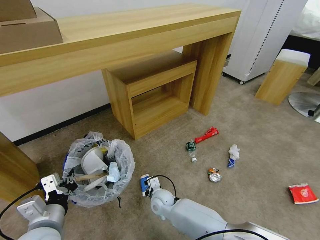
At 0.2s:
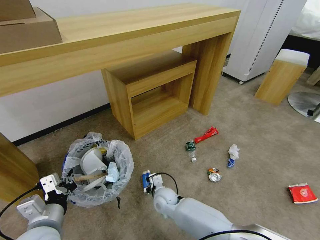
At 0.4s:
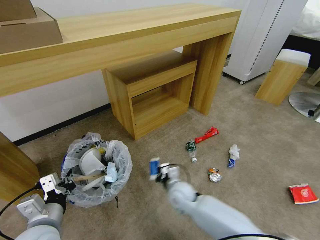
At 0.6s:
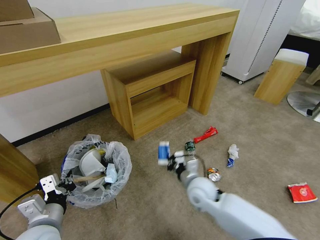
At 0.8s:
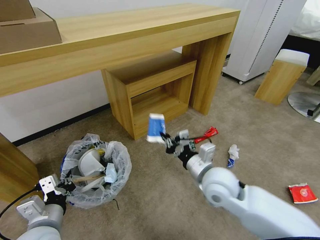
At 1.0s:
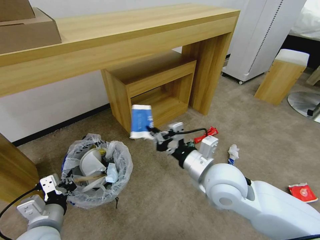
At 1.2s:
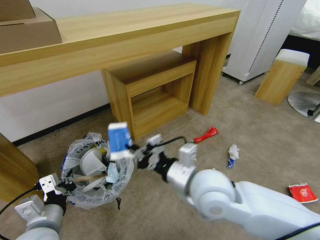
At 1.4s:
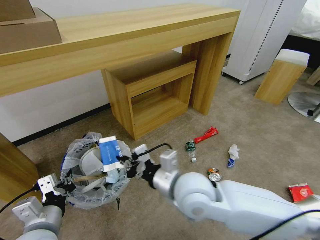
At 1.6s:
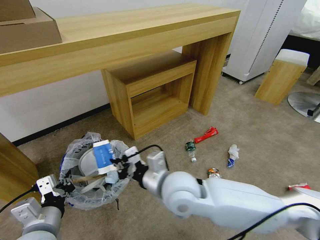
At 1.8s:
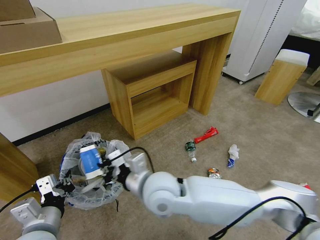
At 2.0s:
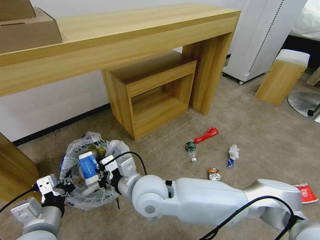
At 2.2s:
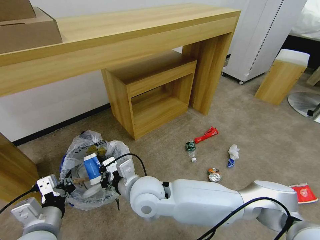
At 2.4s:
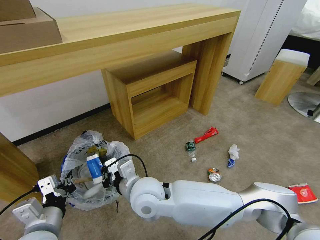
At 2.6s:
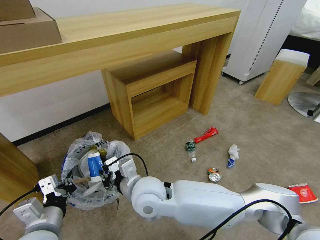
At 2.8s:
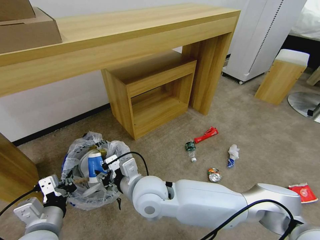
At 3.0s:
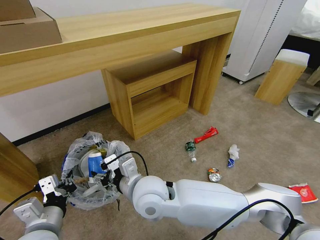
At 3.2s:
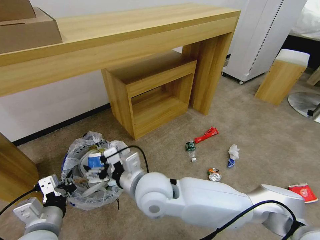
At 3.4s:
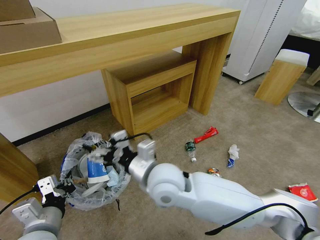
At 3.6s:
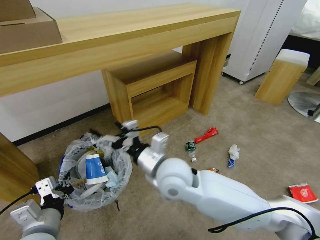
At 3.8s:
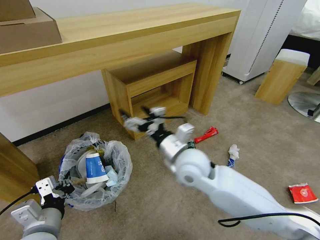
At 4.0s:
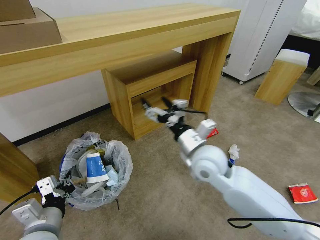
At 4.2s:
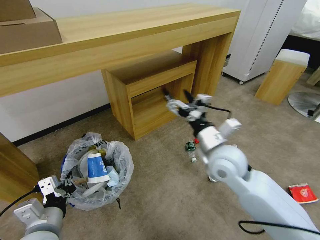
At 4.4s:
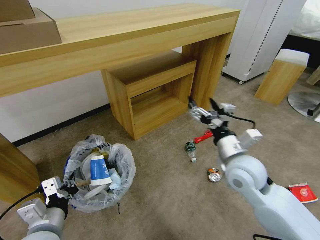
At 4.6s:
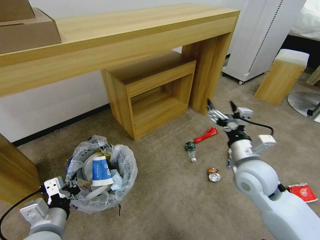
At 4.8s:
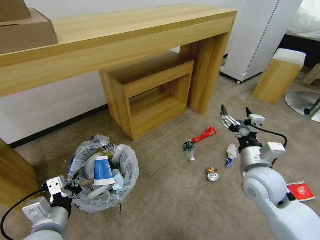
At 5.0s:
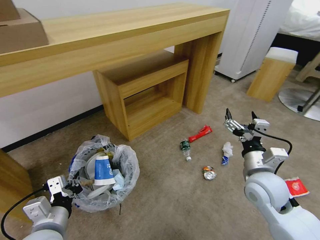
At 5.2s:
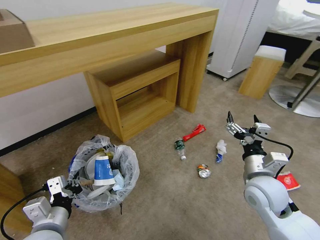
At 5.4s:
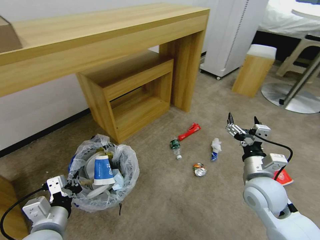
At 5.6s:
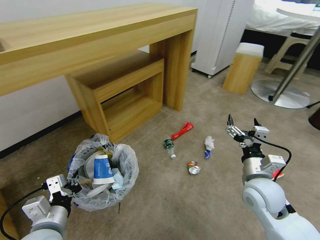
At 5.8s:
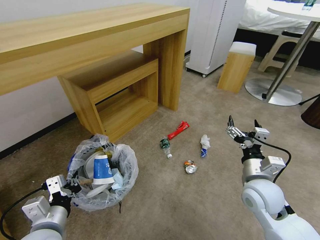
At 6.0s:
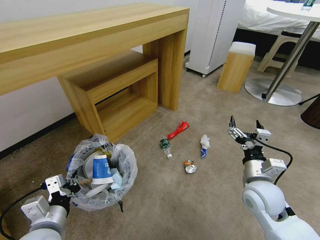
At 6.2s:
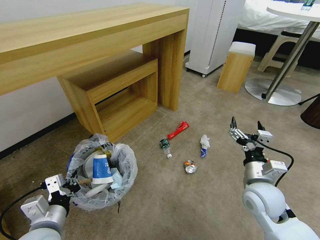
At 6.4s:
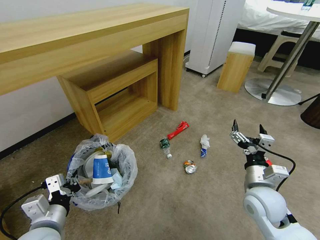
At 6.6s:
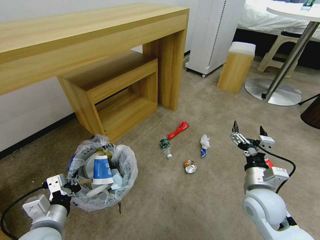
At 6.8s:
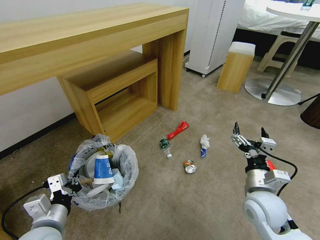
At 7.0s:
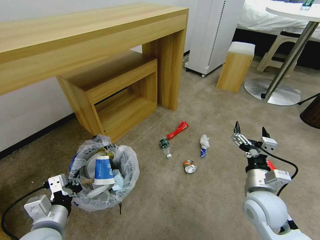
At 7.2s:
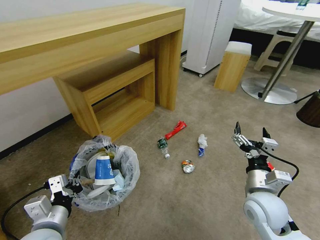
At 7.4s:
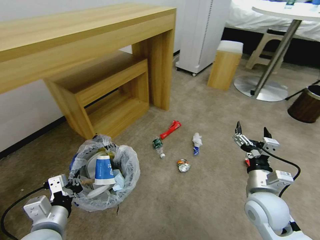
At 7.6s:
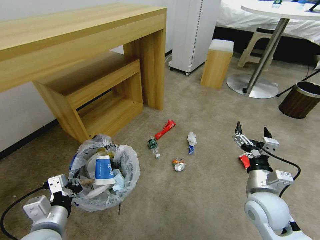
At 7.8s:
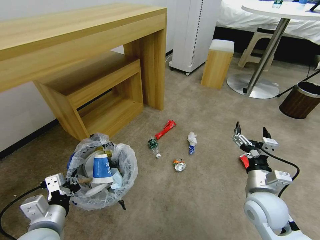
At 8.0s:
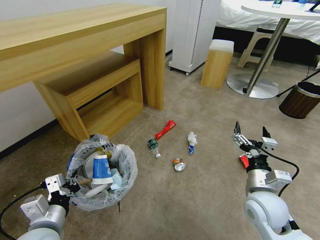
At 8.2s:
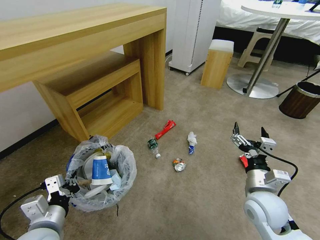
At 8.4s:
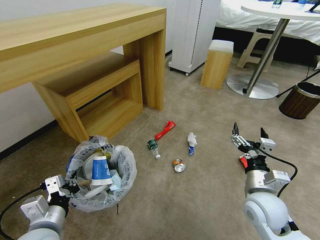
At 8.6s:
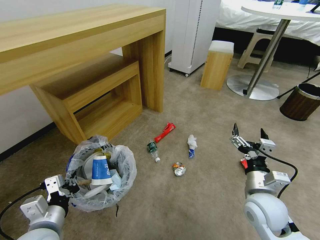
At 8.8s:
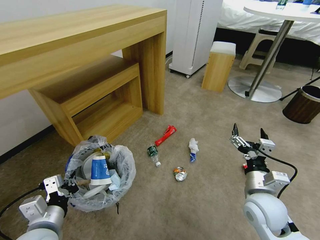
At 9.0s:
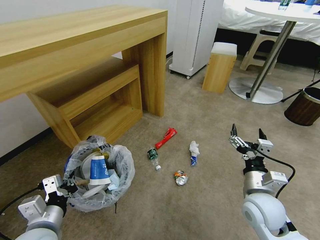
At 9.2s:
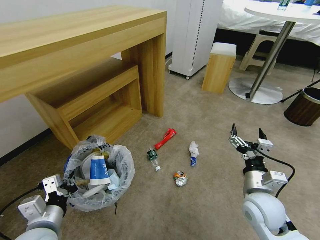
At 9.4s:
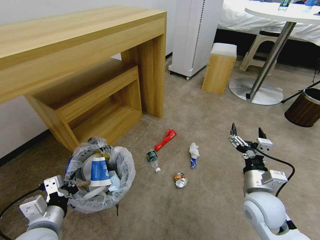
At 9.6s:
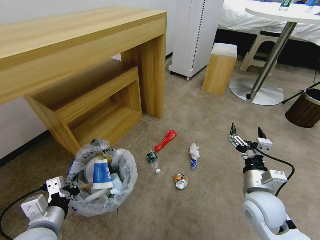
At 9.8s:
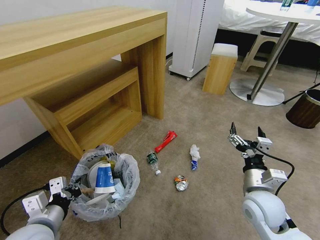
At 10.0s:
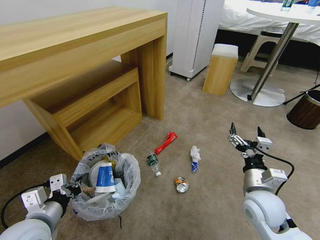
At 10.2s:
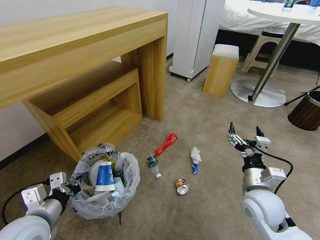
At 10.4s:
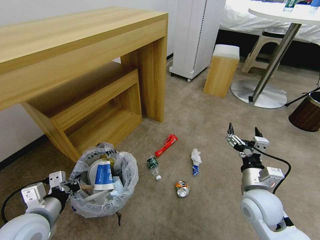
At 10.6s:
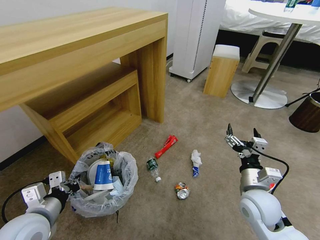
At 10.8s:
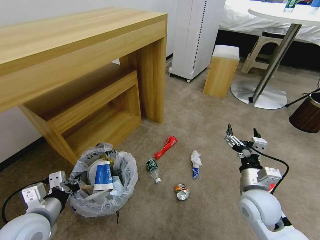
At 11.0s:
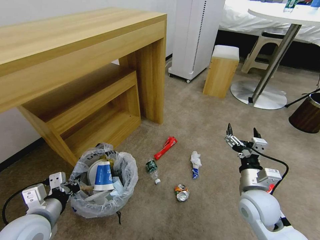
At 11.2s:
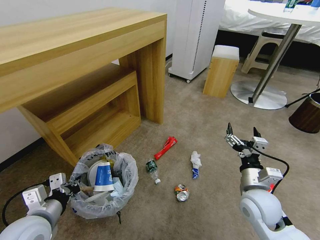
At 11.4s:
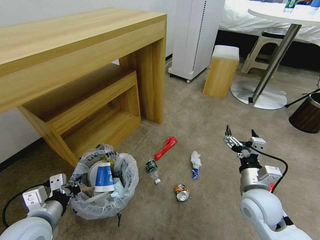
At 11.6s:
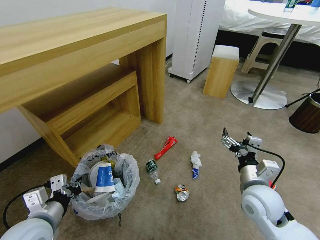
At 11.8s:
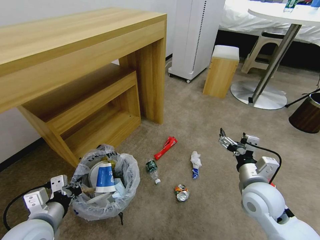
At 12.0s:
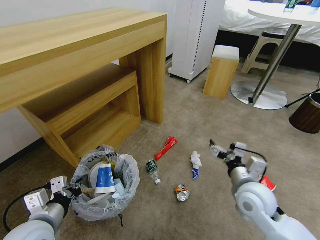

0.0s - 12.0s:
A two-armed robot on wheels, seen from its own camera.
Task of the whole recording: Pick up the trash bin and place the garbage on the floor into it.
0.0s - 1.6s: The right gripper travels upward by roughly 30 cm.
1.6s - 3.0s: The right gripper moves to the left, about 5 cm, and opens.
3.0s - 4.4s: The right gripper is displaced to the right by roughly 25 cm.
4.4s - 6.0s: The right gripper shifts about 10 cm downward and to the right.

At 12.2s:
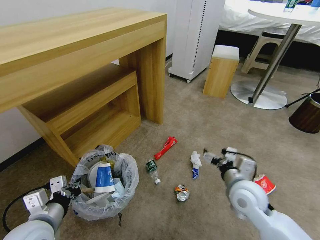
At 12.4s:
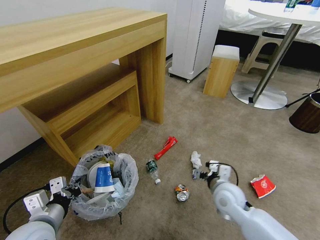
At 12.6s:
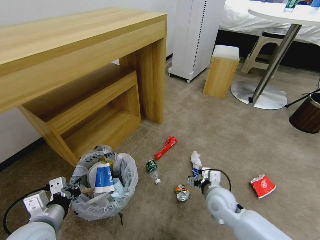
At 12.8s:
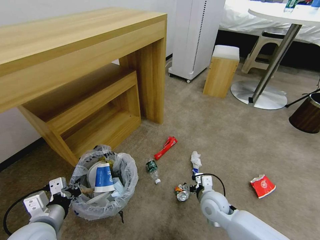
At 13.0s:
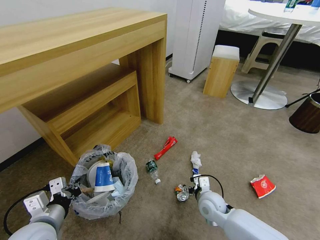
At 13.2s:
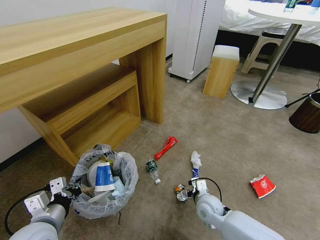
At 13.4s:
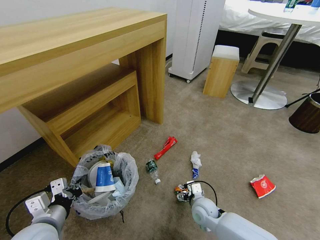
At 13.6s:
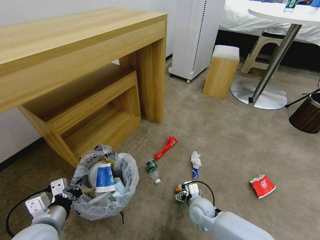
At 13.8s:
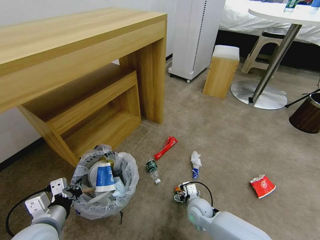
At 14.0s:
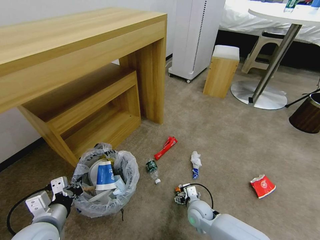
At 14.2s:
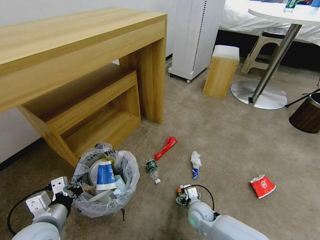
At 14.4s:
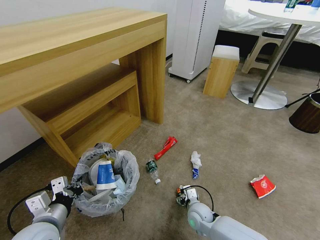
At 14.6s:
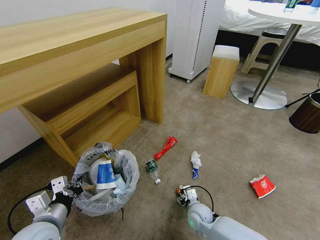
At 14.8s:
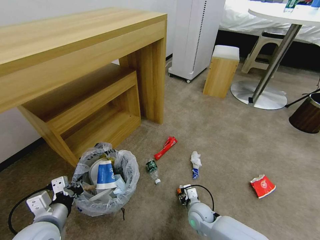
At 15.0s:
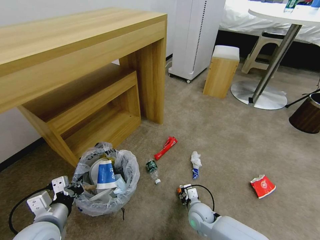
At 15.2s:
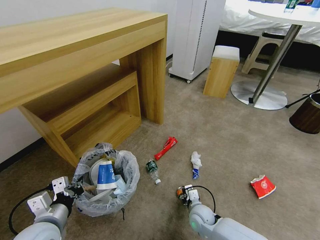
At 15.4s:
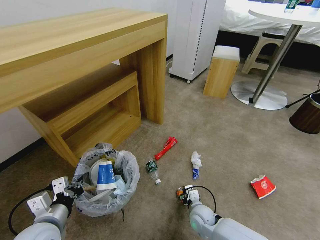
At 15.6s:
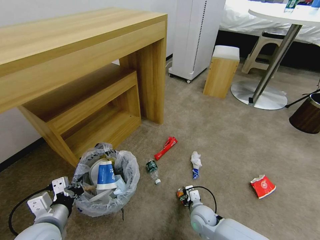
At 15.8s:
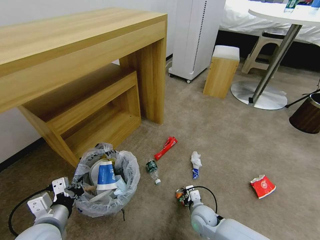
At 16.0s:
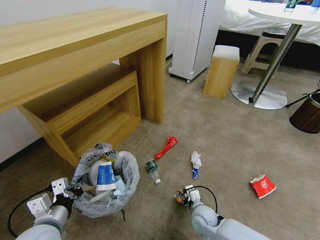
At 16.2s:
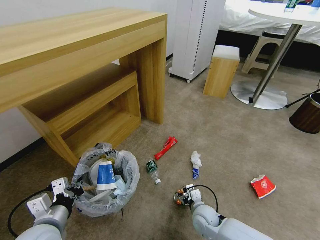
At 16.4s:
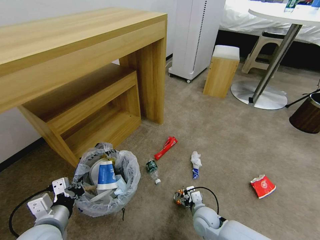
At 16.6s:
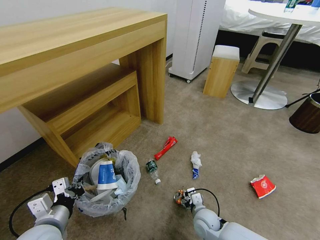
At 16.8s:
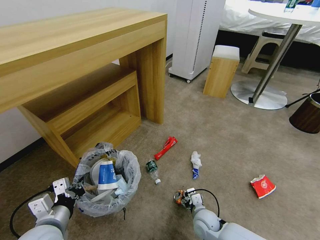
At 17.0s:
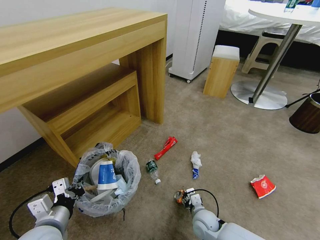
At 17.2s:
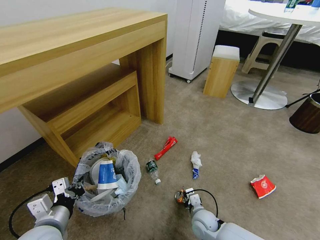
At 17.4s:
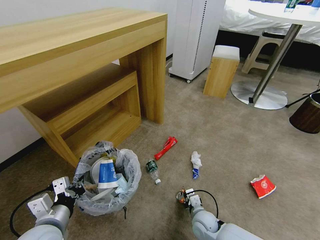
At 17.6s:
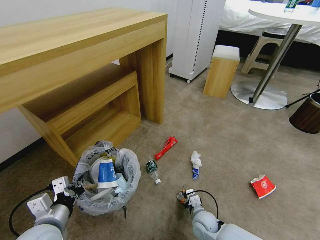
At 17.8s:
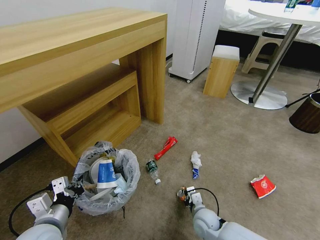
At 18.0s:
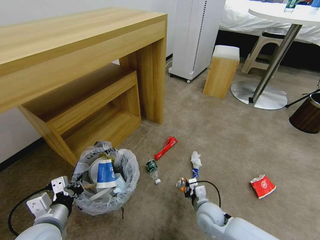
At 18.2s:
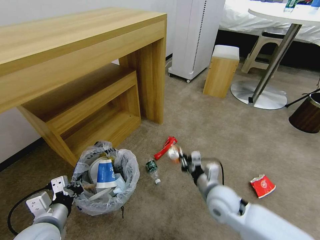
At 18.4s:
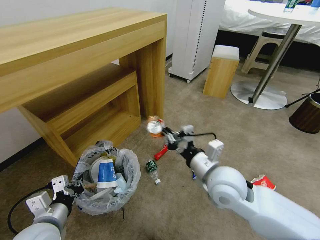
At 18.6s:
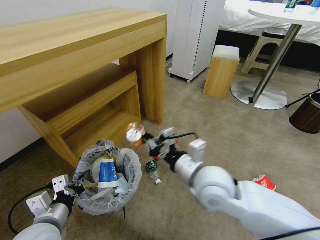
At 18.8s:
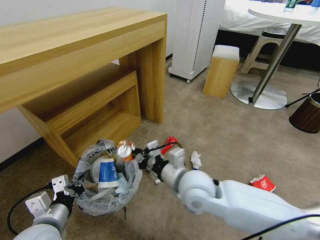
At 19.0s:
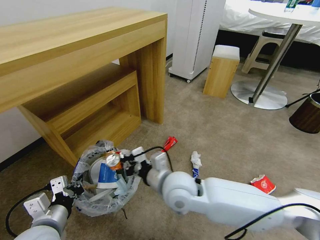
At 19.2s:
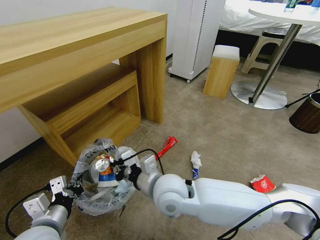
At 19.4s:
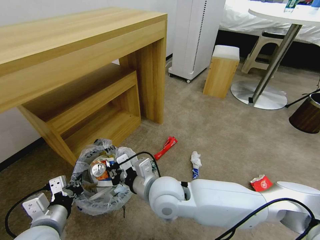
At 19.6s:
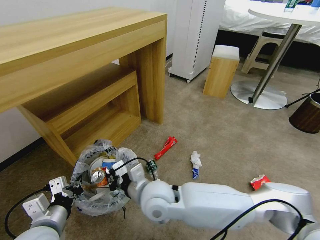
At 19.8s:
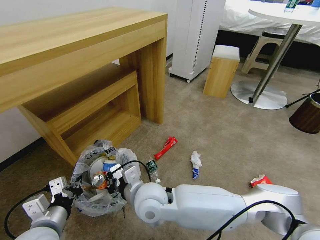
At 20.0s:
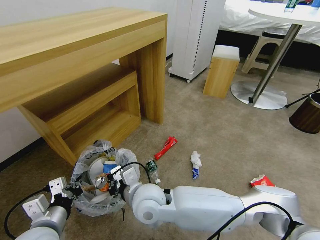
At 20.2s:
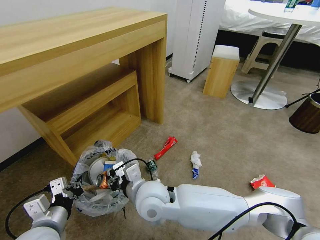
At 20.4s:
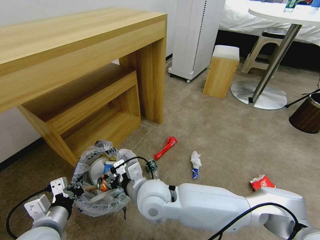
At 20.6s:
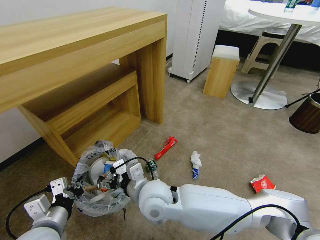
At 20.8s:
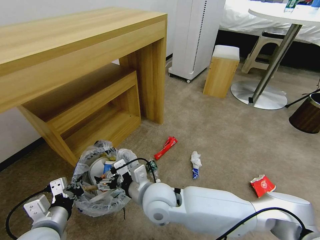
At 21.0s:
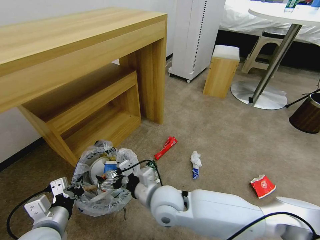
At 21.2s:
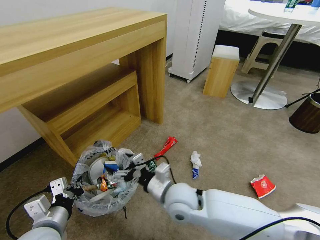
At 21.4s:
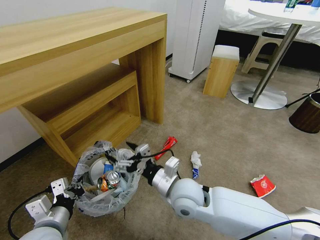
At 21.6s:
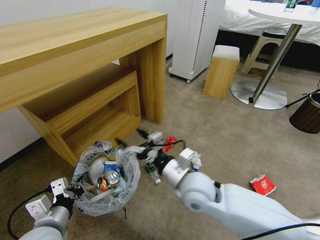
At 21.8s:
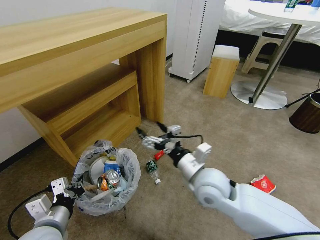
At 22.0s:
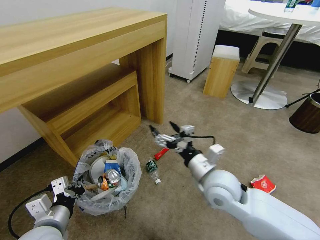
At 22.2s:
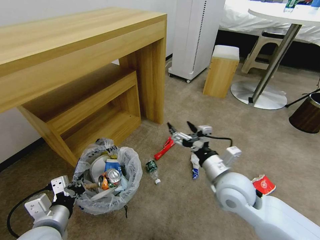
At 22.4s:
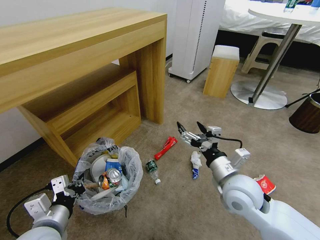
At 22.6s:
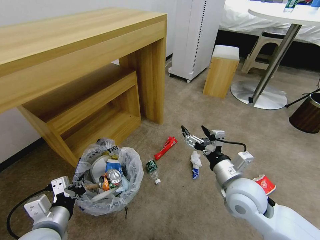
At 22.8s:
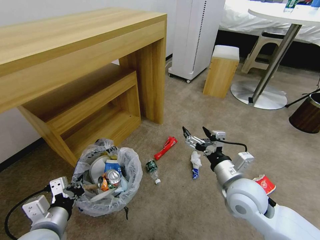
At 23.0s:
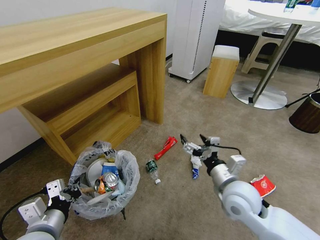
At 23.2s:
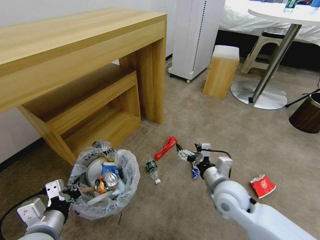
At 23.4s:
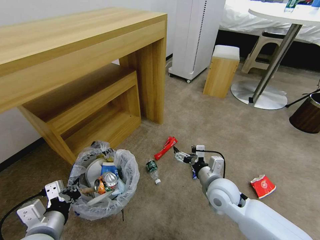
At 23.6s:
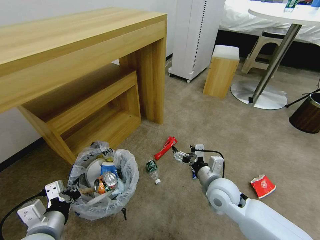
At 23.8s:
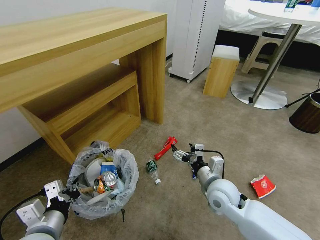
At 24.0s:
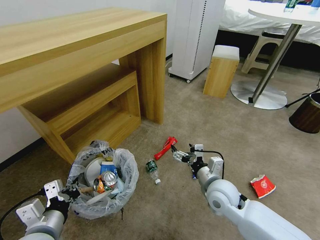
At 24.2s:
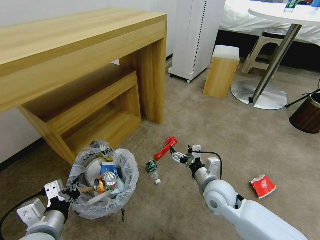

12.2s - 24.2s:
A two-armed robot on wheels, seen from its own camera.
Task of the whole recording: Pick up the trash bin and place the garbage on the floor into it.
12.2s - 13.8s: The right gripper travels downward and to the left by some 20 cm.
13.8s - 15.2s: The right gripper closes up.
15.2s - 16.6s: The right gripper opens up.
16.6s - 18.2s: The right gripper heads upward, covering about 15 cm, and closes up.
18.2s - 19.8s: The right gripper shifts approximately 20 cm to the left.
19.8s - 21.2s: The right gripper shifts about 10 cm to the right, and opens.
21.2s - 22.6s: The right gripper moves to the right, approximately 15 cm.
22.6s - 24.2s: The right gripper is displaced downward by approximately 10 cm.
